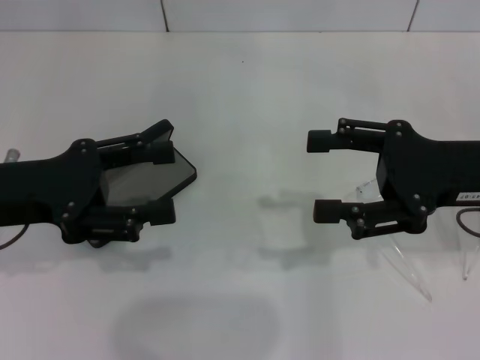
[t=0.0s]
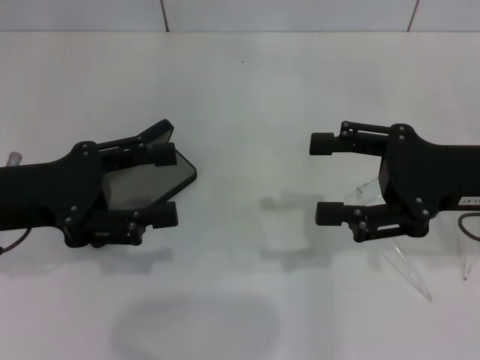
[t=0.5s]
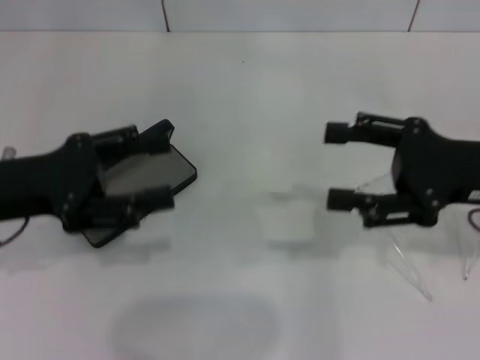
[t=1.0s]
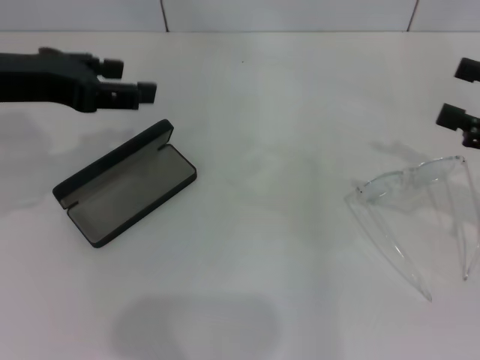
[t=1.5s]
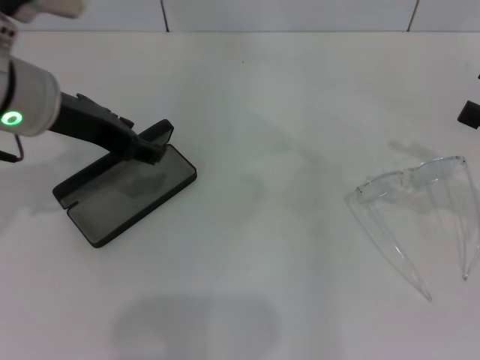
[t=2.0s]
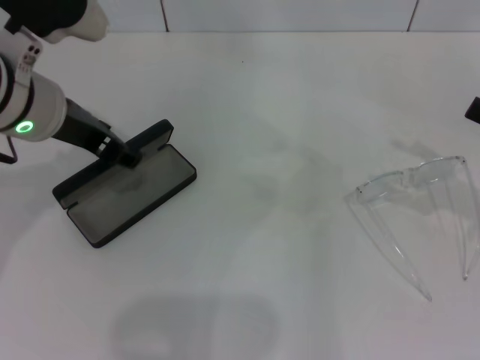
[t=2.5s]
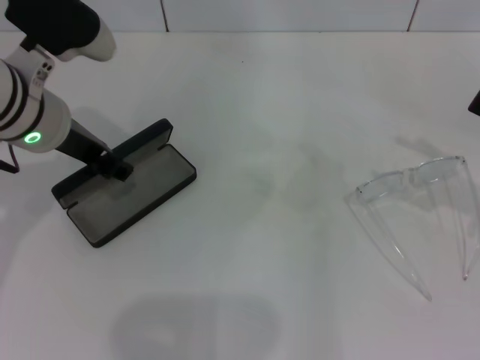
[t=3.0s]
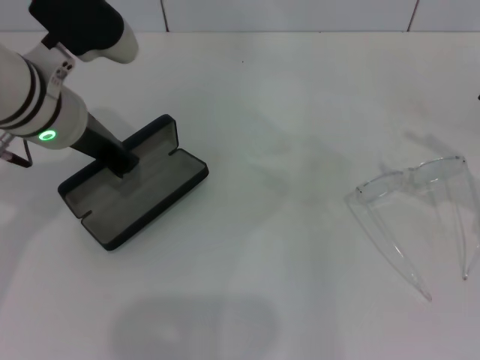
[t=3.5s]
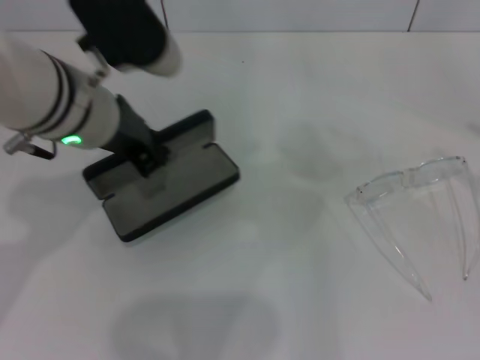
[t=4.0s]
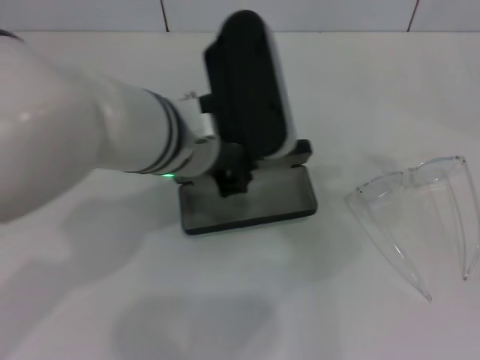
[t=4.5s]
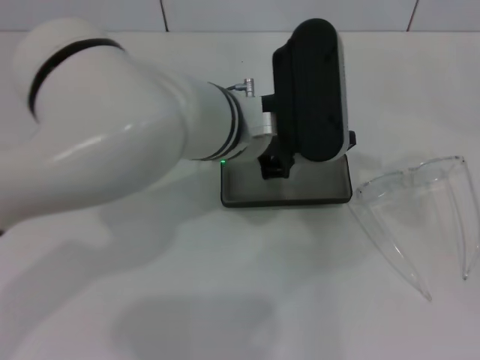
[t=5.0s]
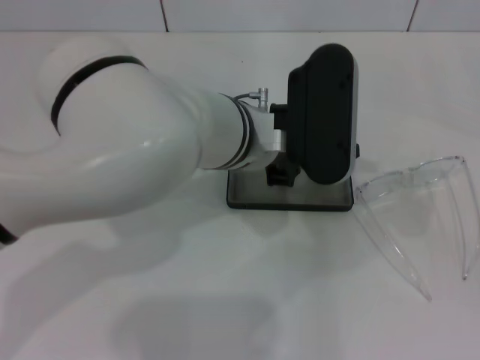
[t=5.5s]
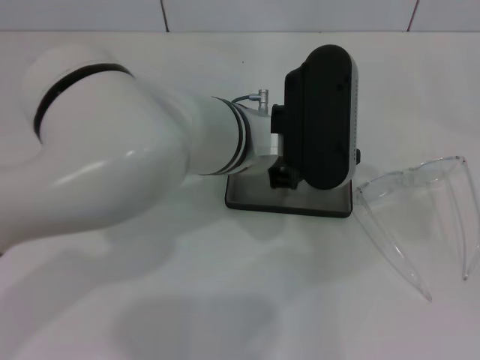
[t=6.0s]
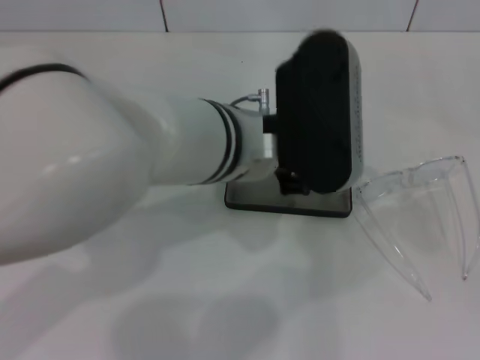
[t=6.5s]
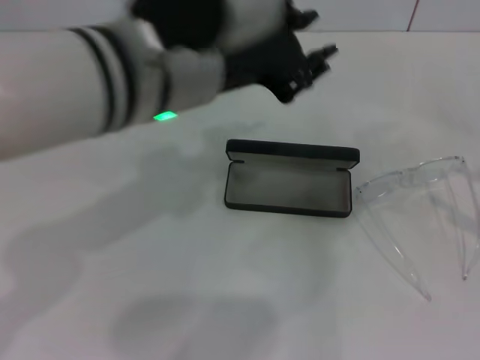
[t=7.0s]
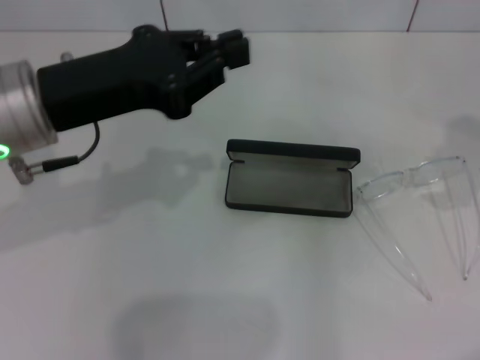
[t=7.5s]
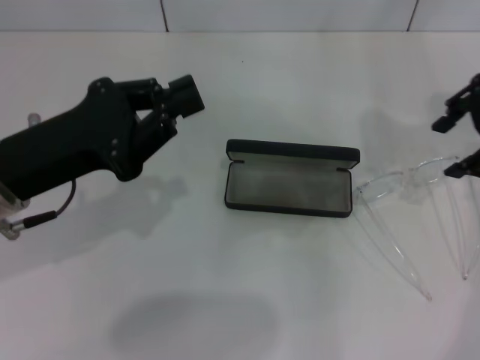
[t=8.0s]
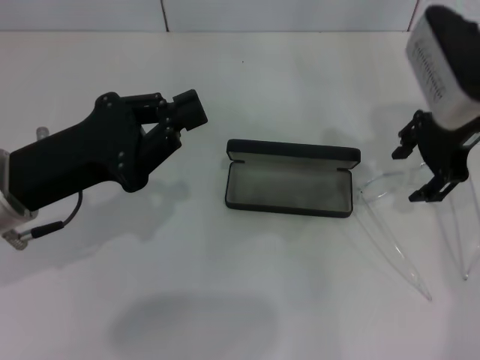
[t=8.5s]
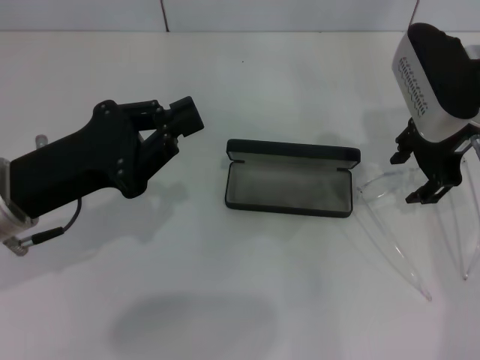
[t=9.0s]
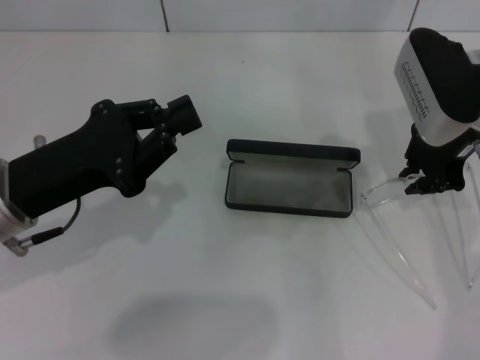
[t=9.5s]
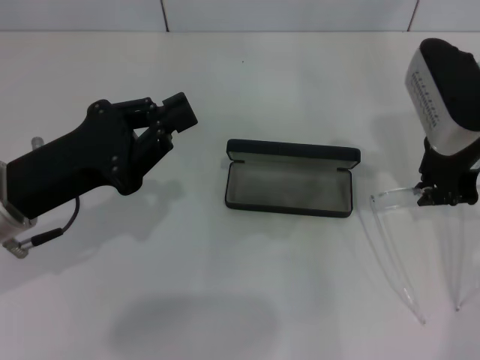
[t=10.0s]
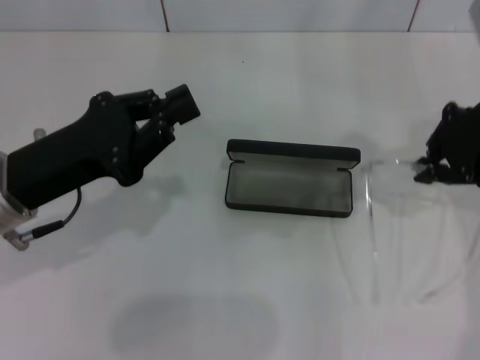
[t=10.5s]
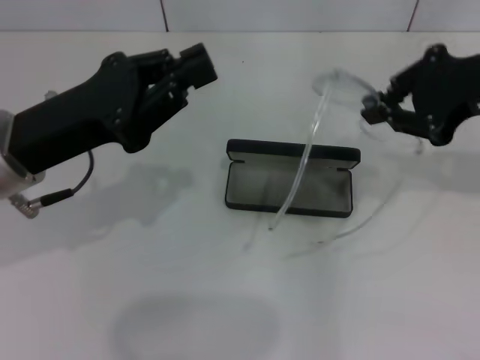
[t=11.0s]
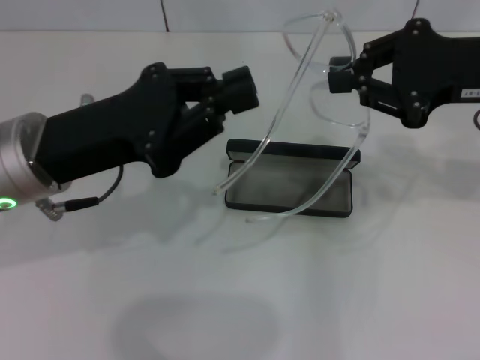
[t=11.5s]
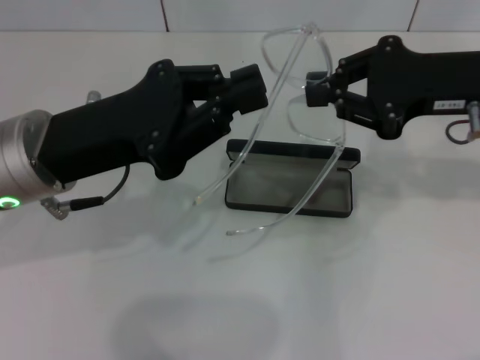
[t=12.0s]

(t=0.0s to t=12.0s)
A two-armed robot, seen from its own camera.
Step, t=0.0s - t=3.5s: Grab the glasses case with your left hand.
Step, t=4.0s - t=6.0s: Place the glasses case in the center of the table with your left hand.
Step, t=6.5s - t=10.0s: Grab the eyeglass frame with your right hand.
t=0.0s - t=2.0s: The right gripper goes approximately 10 cm to the right. The left gripper travels to the right, forward and upward by some 10 cm.
t=2.0s - t=4.0s: The left gripper is displaced to the right by some 5 cm, and closes up. Meanwhile the right gripper moves roughly 5 cm.
t=4.0s - t=6.0s: The left gripper travels to the right by some 10 cm. Meanwhile the right gripper shifts about 10 cm backward.
t=6.0s - t=8.0s: The left gripper travels to the left by roughly 20 cm, while the right gripper shifts roughly 30 cm forward, to the left and upward.
t=8.0s - t=10.0s: The right gripper travels downward and to the left by some 10 cm, and closes up.
t=10.0s - t=12.0s: The left gripper ends up approximately 5 cm from where it was.

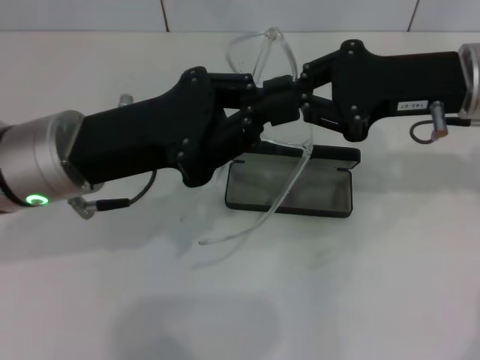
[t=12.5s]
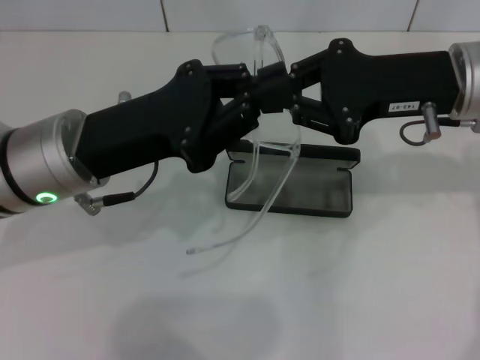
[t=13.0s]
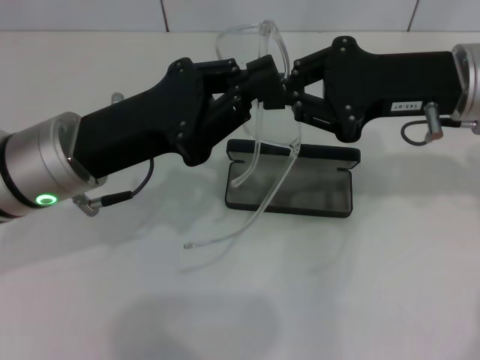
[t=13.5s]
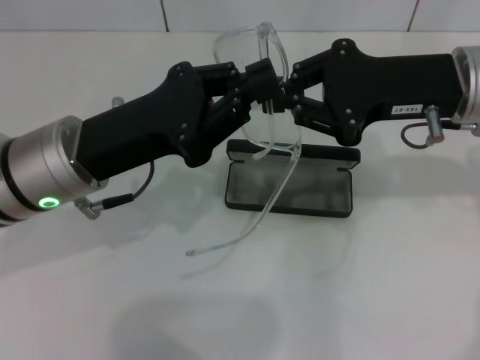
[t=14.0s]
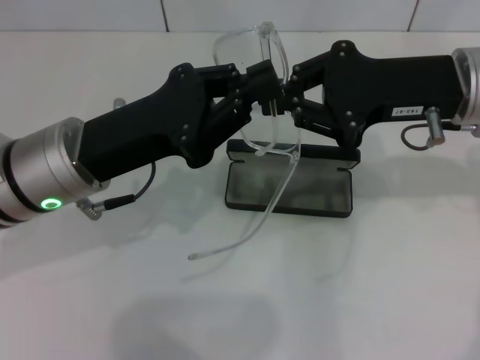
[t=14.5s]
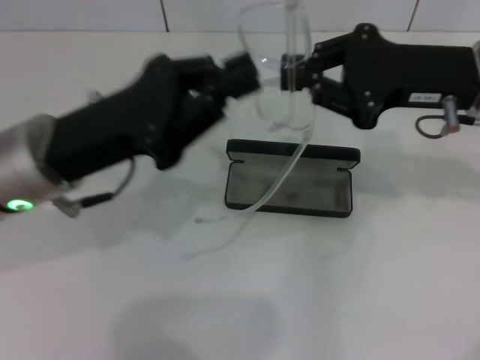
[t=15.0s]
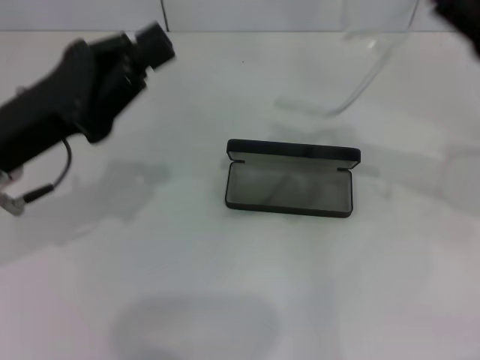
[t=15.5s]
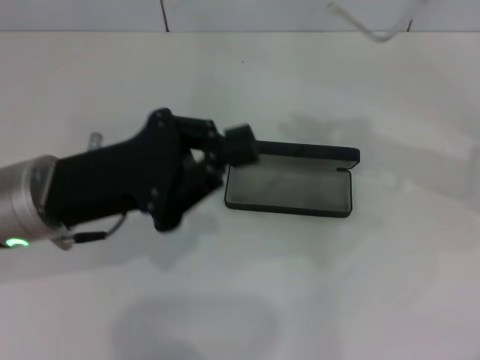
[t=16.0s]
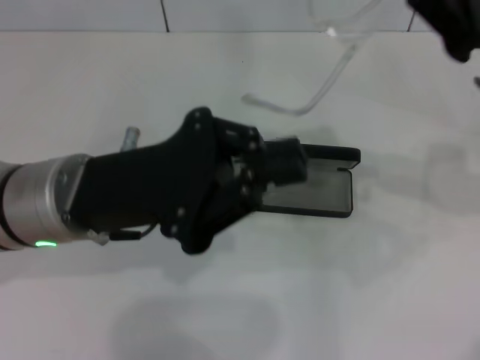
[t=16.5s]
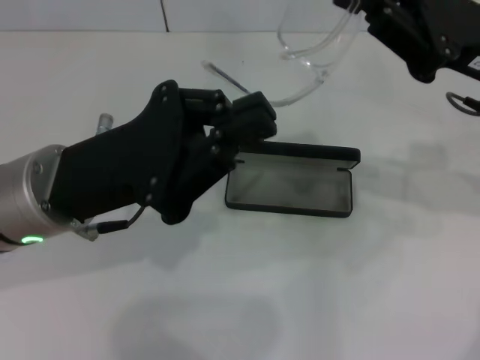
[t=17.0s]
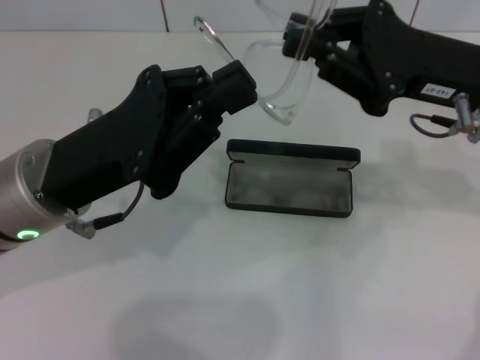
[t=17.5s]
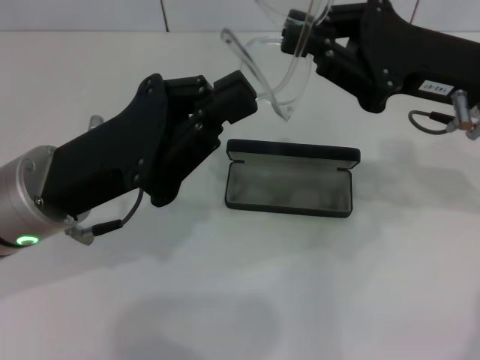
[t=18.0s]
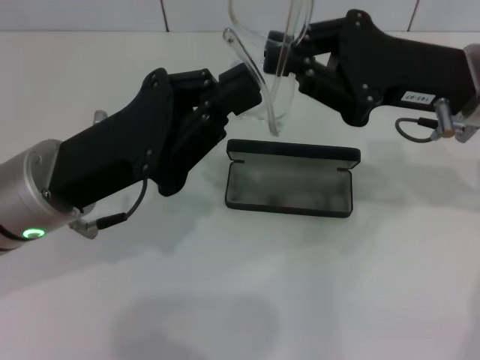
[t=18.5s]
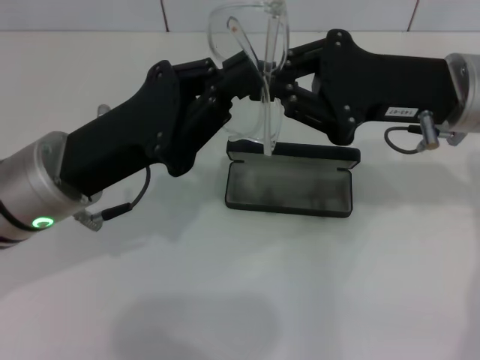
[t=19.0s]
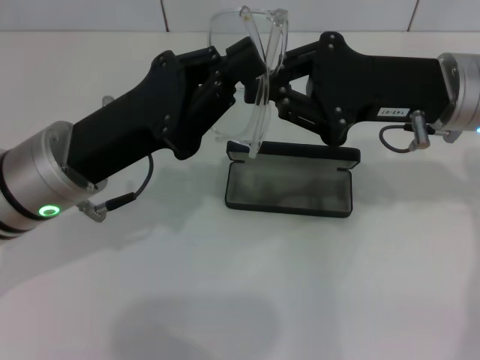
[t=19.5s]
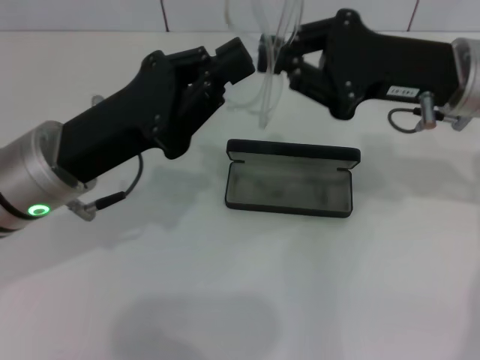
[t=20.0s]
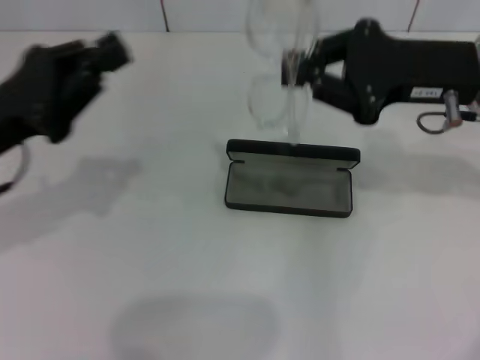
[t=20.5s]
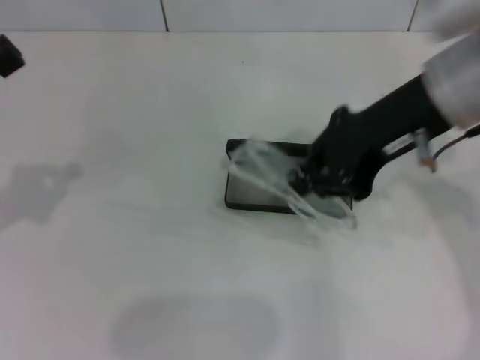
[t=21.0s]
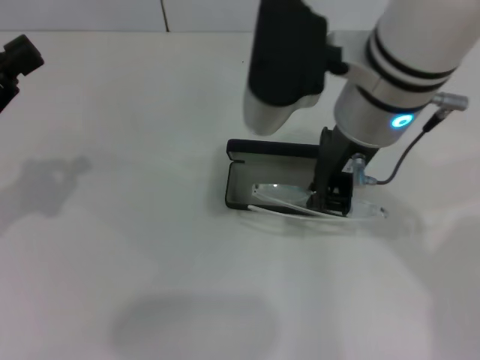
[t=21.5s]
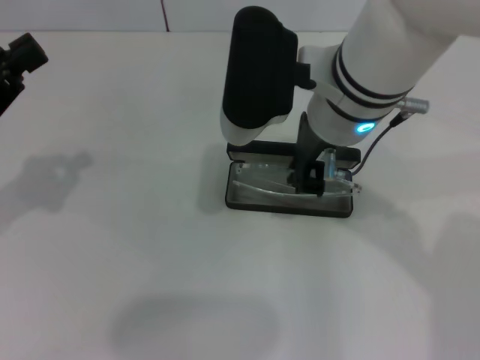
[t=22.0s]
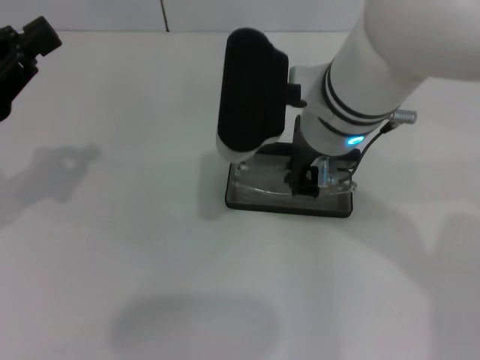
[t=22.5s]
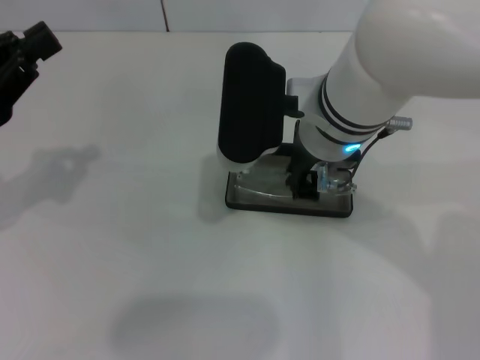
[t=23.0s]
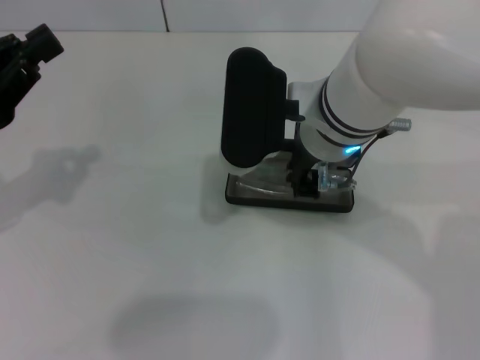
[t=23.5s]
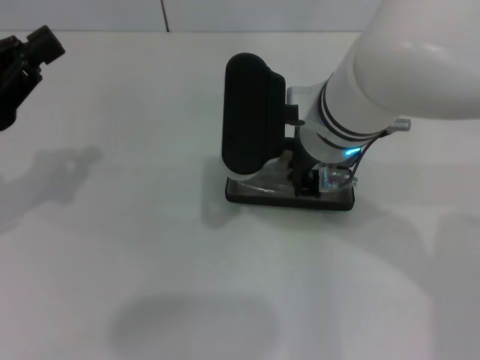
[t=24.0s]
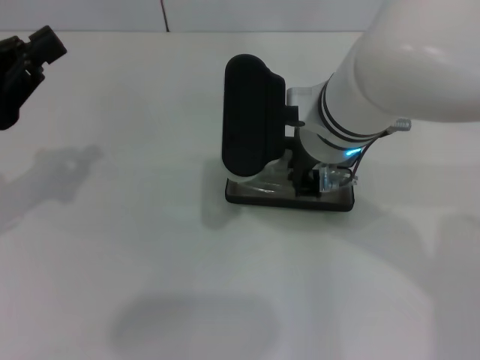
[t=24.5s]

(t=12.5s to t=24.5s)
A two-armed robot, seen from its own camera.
Step, t=12.5s - t=19.5s: Lift the glasses with your right hand.
t=12.5s - t=14.5s: The grippers move only a little.
t=16.5s - t=18.5s: The right gripper ends up approximately 5 cm from where it was.
t=18.5s - t=20.5s: The left gripper is displaced to the left by about 10 cm.
t=20.5s - t=22.5s: The right gripper moves to the left, approximately 15 cm.
t=22.5s - t=24.5s: The grippers make only small movements.

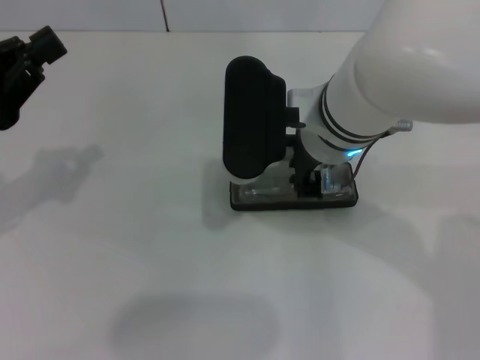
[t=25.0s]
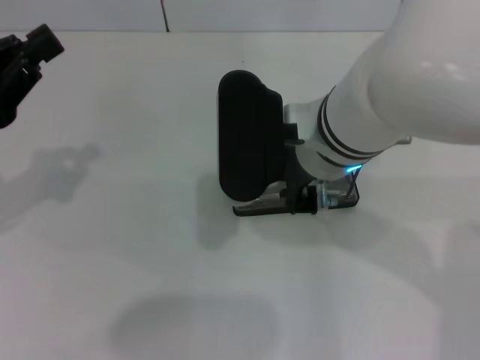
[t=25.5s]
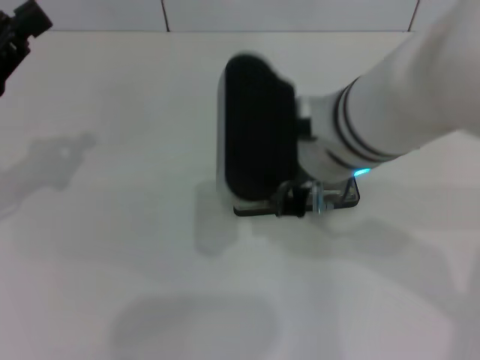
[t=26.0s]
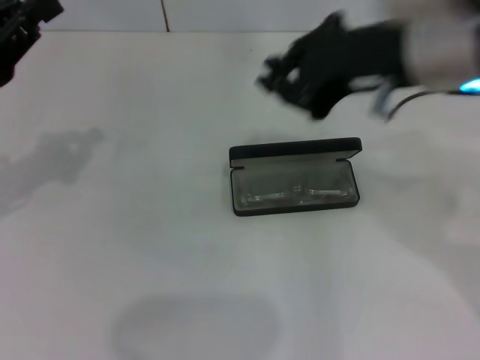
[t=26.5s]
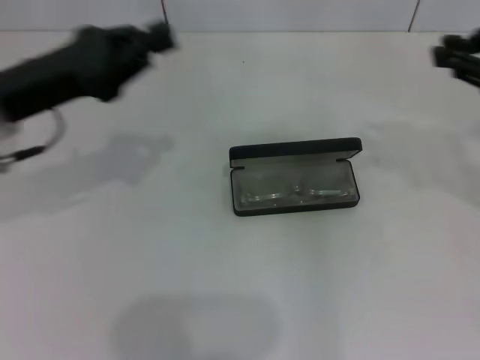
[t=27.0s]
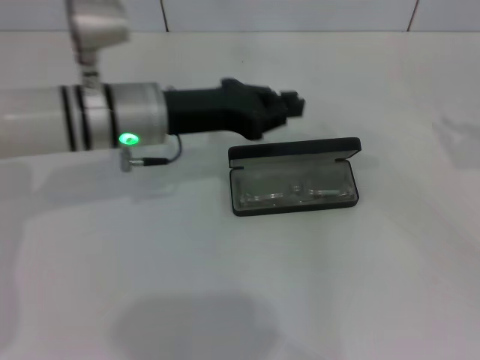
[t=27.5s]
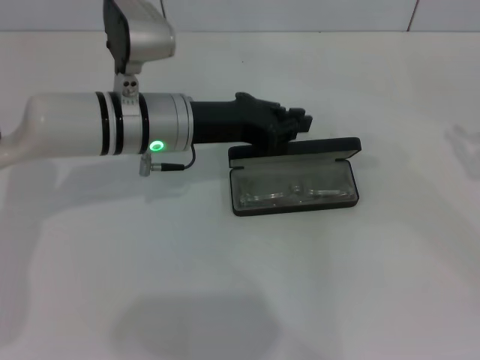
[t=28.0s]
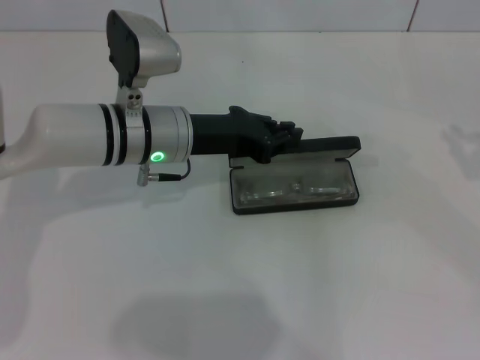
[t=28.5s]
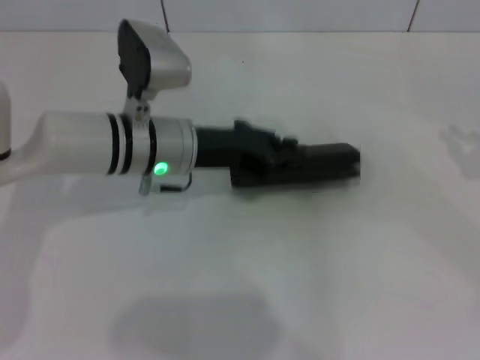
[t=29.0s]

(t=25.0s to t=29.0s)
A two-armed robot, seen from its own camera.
t=25.0s - t=27.0s: The left gripper moves to the right and forward, some 10 cm. Meanwhile the right gripper is displaced to the right by approximately 25 cm.
t=27.0s - t=29.0s: Both grippers travel together to the right and downward, approximately 15 cm.
